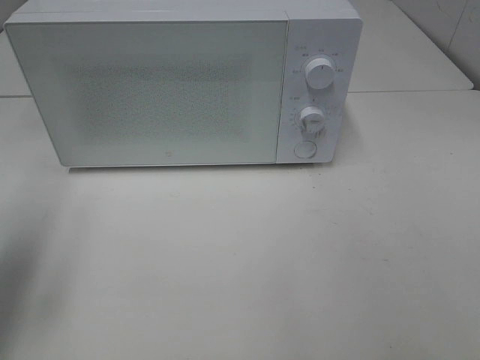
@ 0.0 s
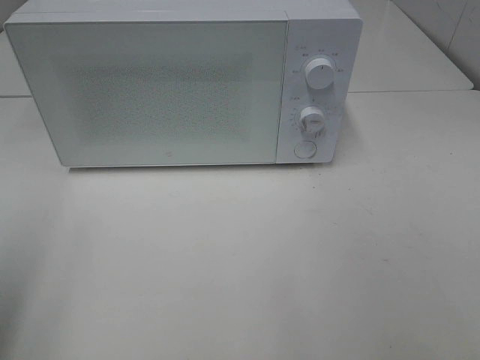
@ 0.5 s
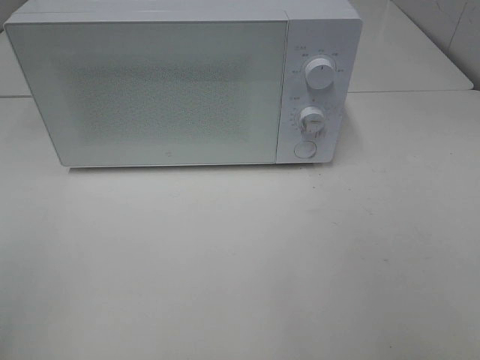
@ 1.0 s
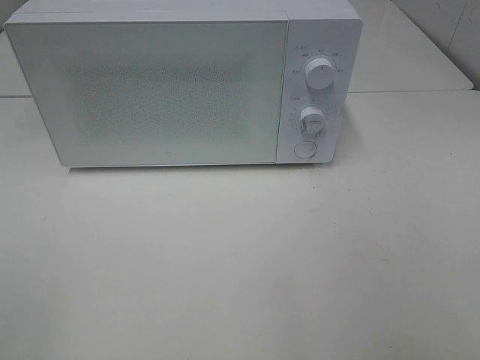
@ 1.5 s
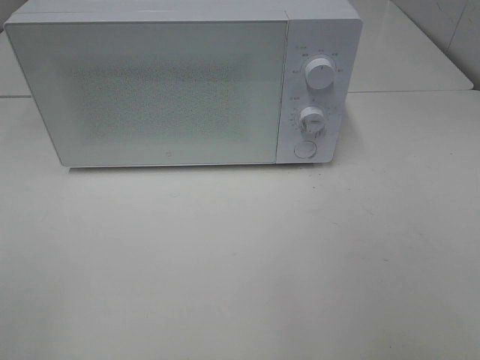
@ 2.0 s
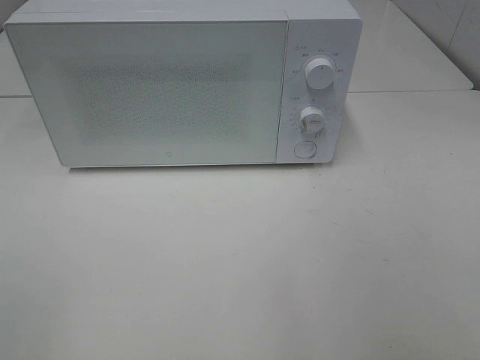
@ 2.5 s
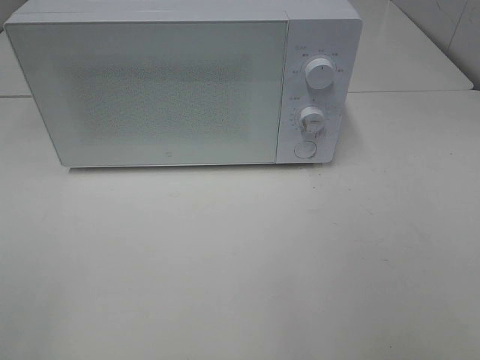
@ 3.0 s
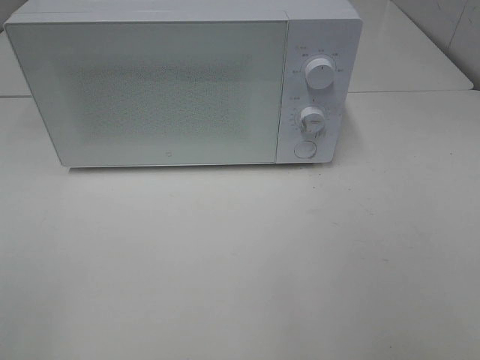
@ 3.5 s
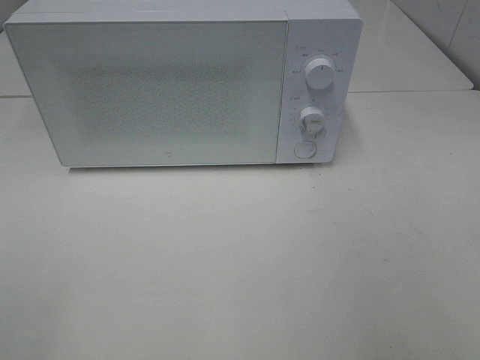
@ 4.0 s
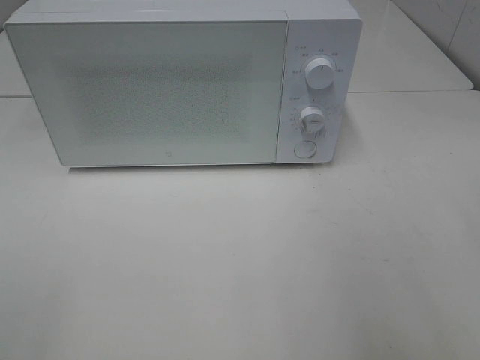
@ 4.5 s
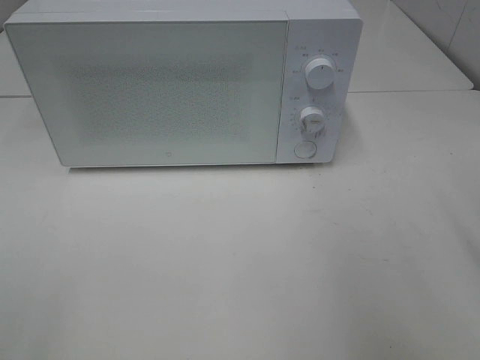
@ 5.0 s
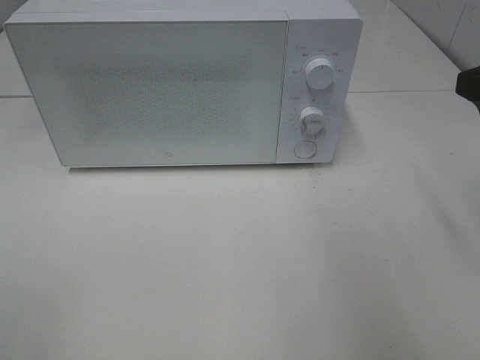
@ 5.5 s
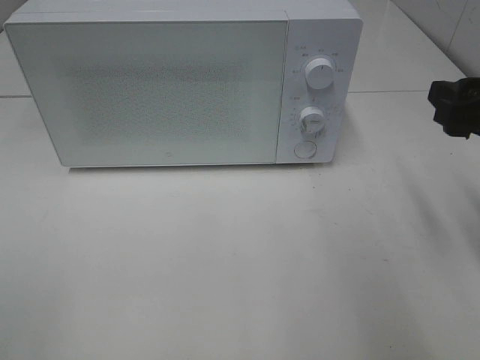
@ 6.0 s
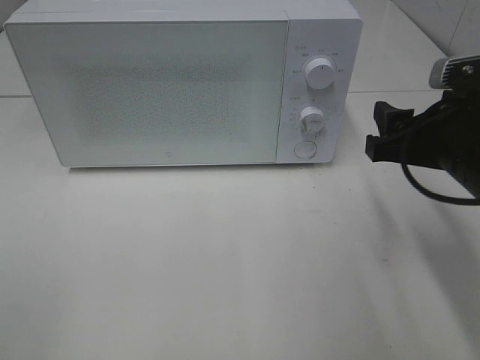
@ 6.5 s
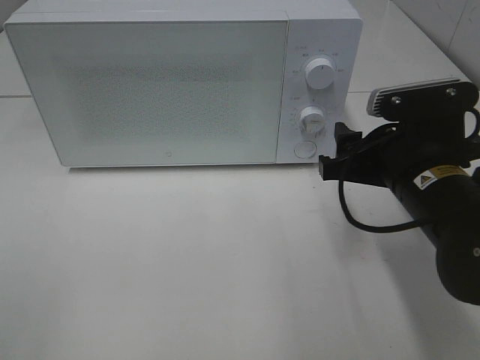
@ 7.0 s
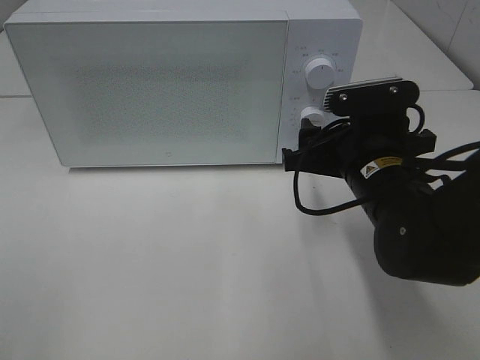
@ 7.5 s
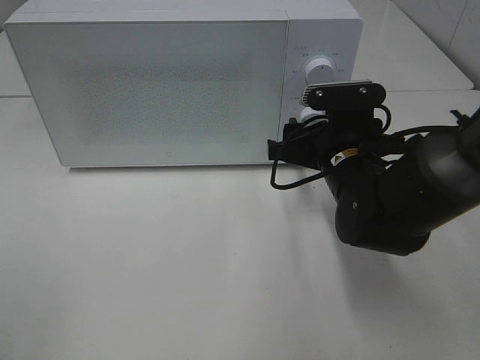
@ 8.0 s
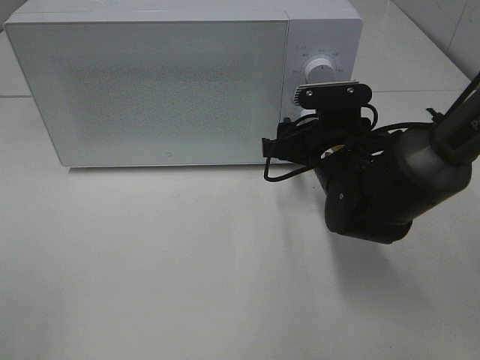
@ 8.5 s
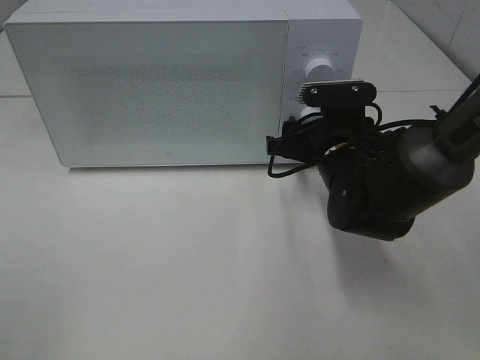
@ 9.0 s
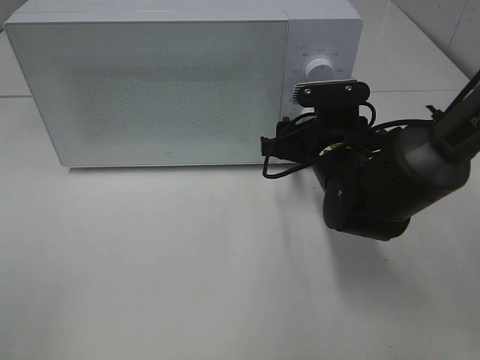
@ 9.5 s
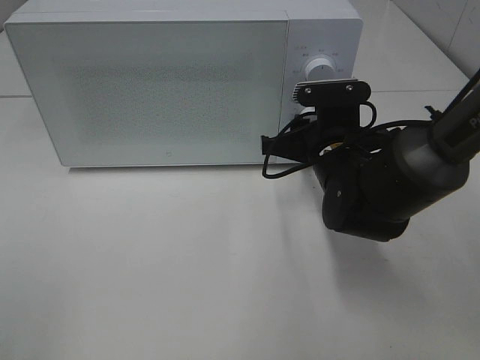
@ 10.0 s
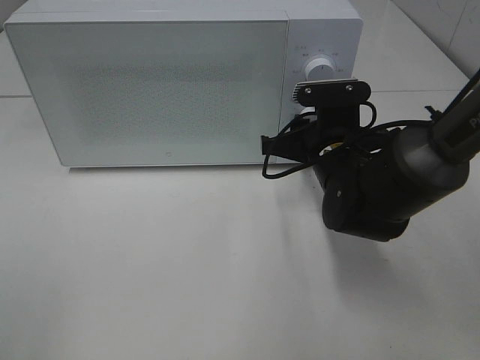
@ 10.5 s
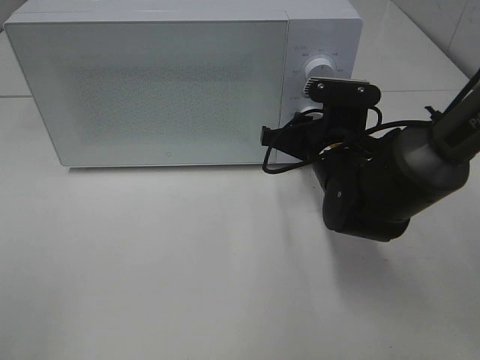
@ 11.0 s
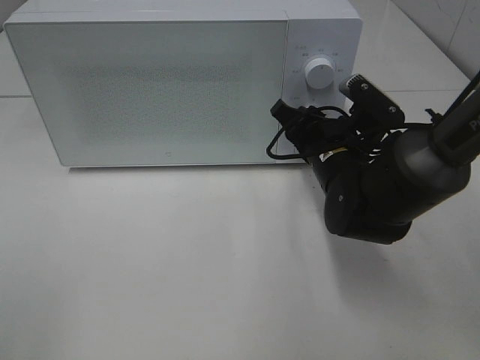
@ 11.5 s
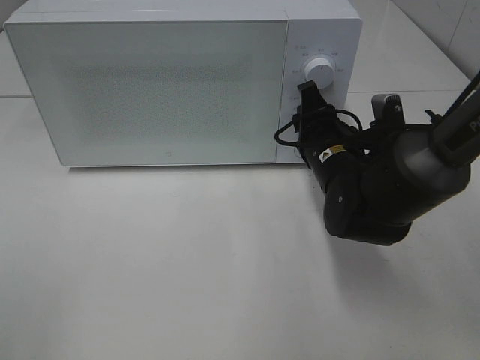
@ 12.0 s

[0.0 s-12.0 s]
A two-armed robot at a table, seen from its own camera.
Task of the whole recording: Heat Sandwich.
0.0 to 2.0 s: The left gripper is displaced backward by some 20 cm.
4.0 to 6.0 s: The right gripper moves forward and downward, about 20 cm.
6.0 to 8.0 s: The right gripper is displaced to the left, downward and forward by approximately 20 cm.
8.0 to 10.0 s: The right gripper closes its fingers.

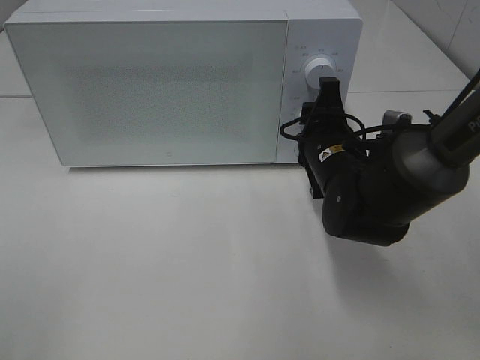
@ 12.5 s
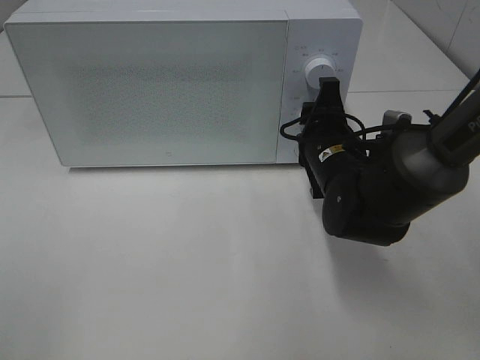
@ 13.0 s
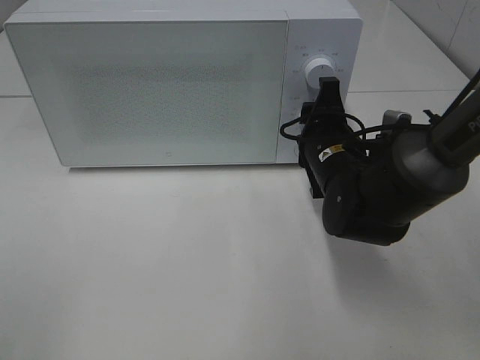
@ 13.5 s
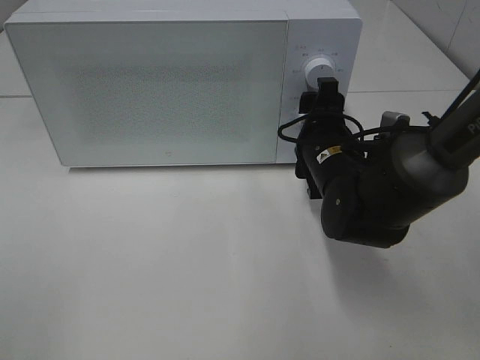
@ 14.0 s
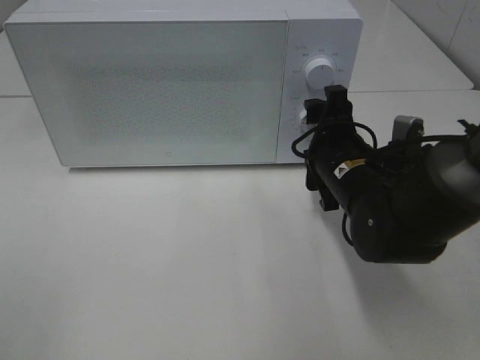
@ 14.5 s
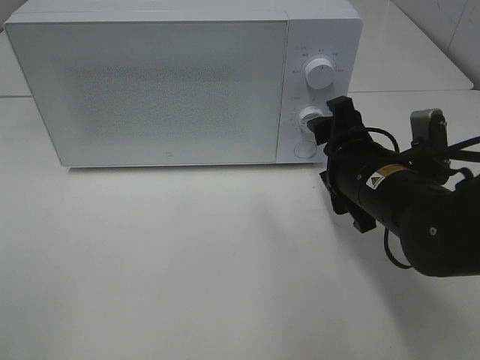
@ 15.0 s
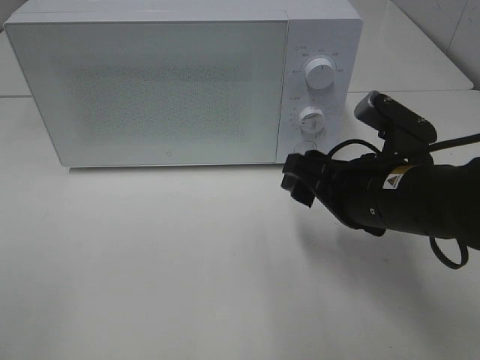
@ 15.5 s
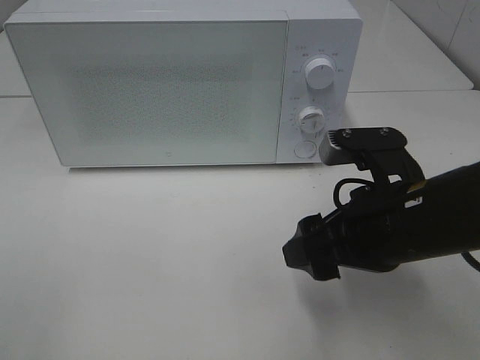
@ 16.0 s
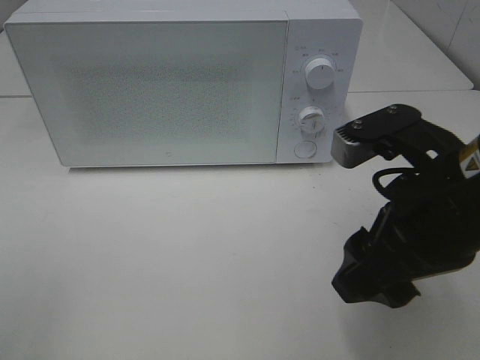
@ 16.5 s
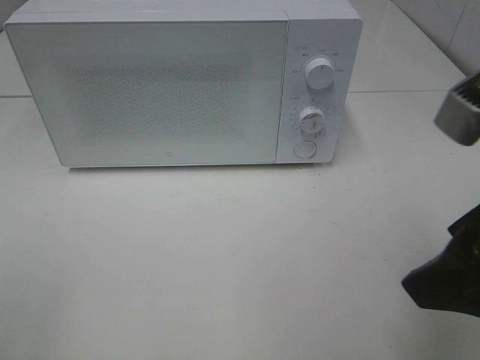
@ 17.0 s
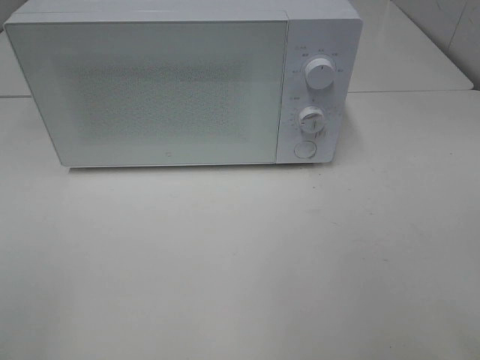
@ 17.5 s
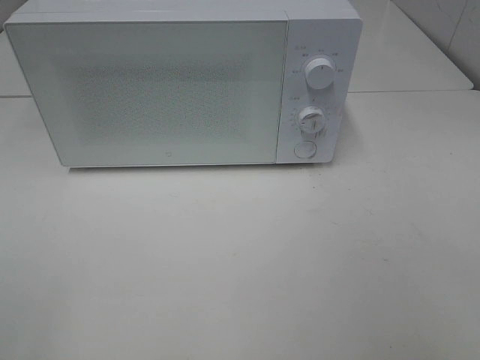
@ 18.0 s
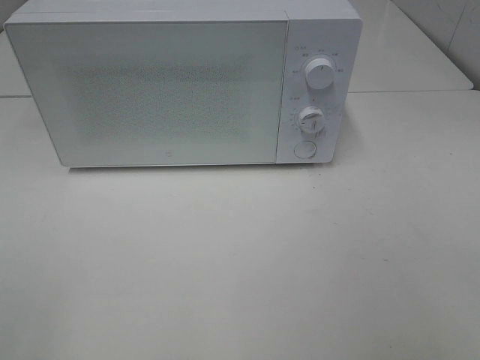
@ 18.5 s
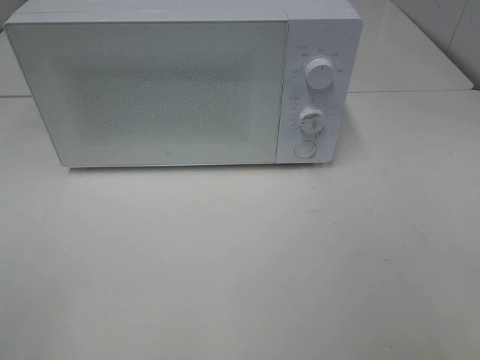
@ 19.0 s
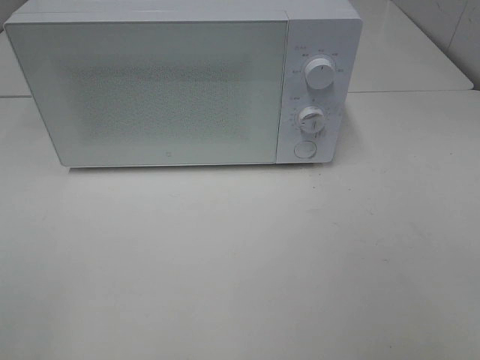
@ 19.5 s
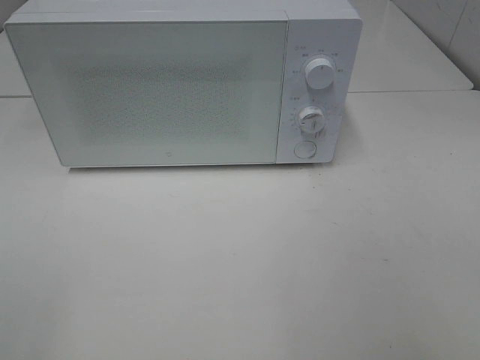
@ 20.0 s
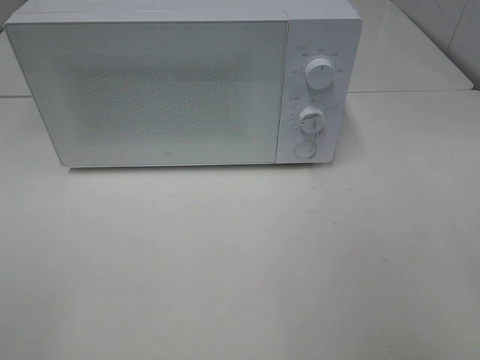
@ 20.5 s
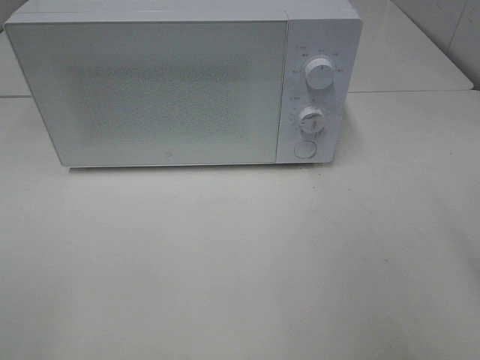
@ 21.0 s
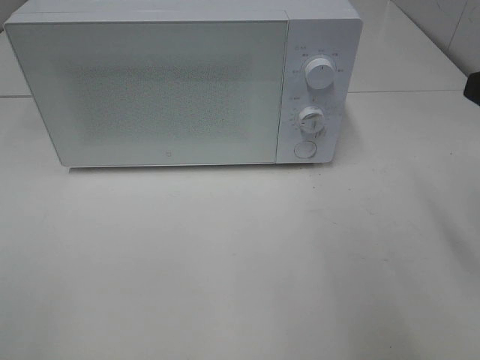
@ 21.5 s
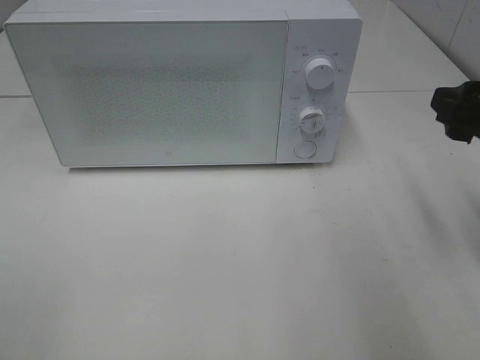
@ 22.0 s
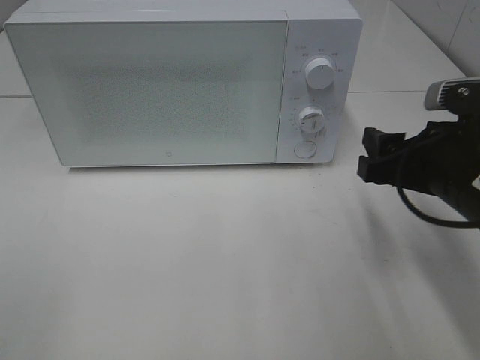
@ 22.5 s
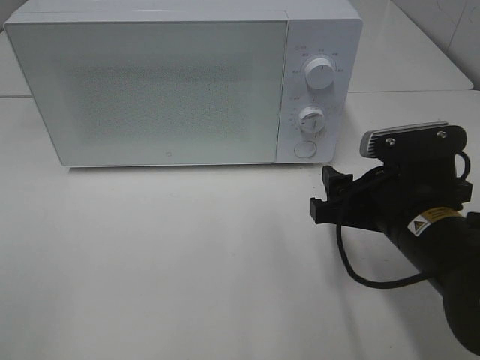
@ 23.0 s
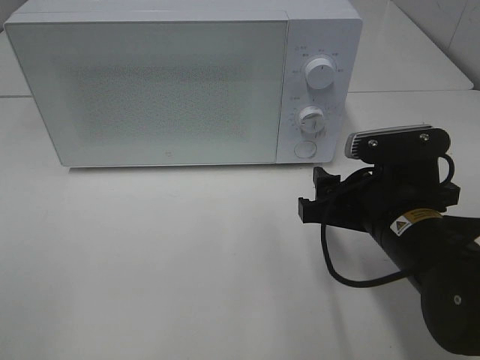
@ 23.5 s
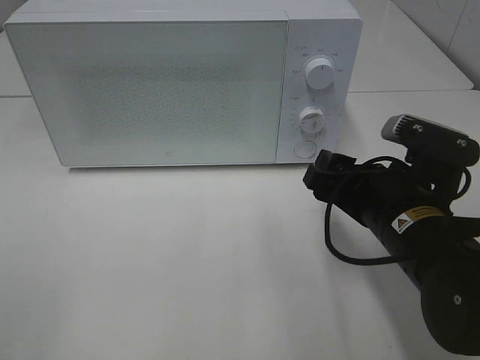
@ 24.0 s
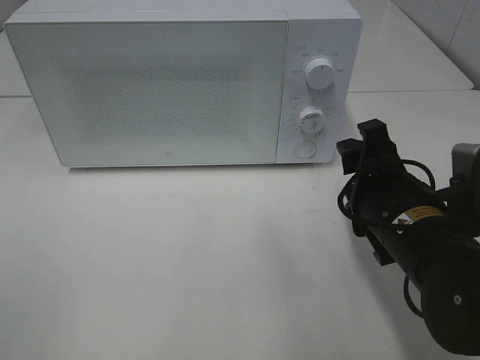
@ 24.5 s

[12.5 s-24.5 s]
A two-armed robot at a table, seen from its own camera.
Task of the whole recording: Heat Sandwich.
Step, 12.5 to 15.0 s: Right hand: twist timer button.
12.5 to 14.5 s: The right gripper opens.
14.5 to 16.5 s: The right gripper shifts about 15 cm backward and upward.
16.5 to 18.5 s: The right gripper is displaced backward and to the right by roughly 20 cm.
20.5 to 22.5 s: The right gripper travels forward, downward and to the left by approximately 20 cm.
22.5 to 24.5 s: The right gripper moves to the left, roughly 5 cm.

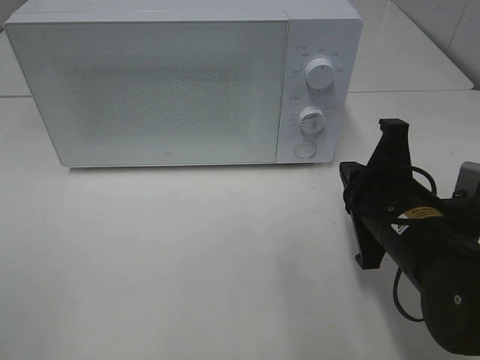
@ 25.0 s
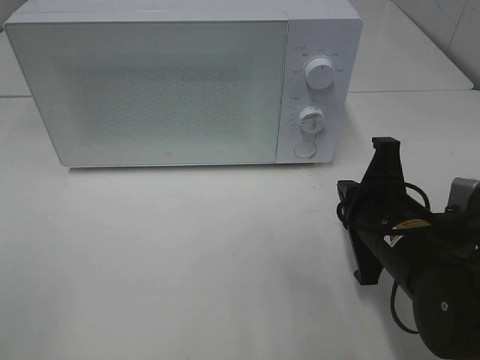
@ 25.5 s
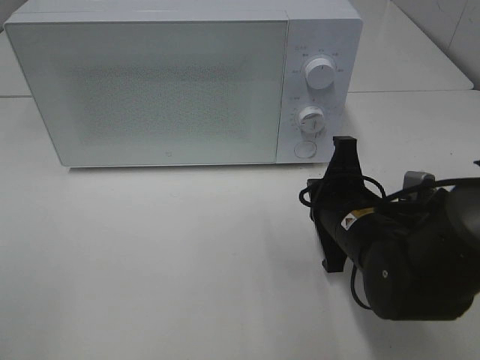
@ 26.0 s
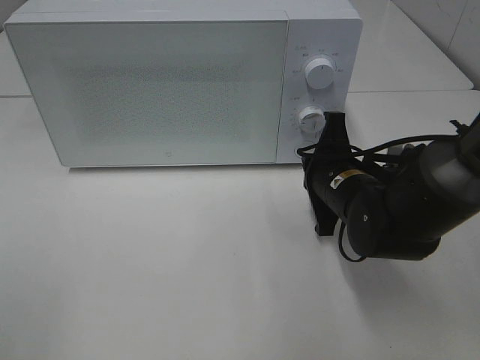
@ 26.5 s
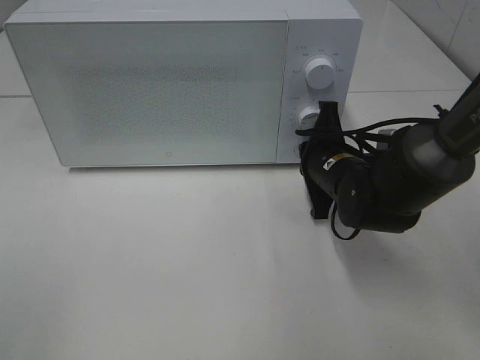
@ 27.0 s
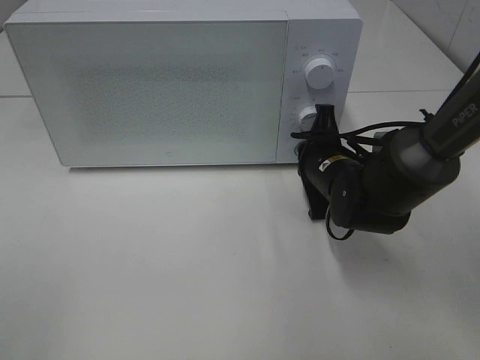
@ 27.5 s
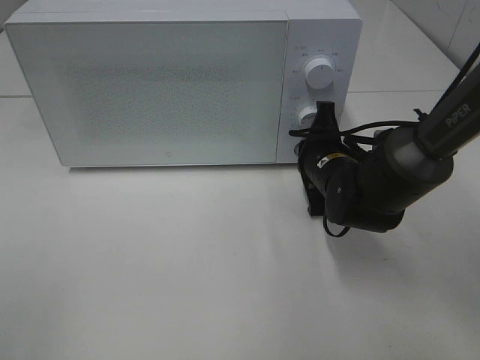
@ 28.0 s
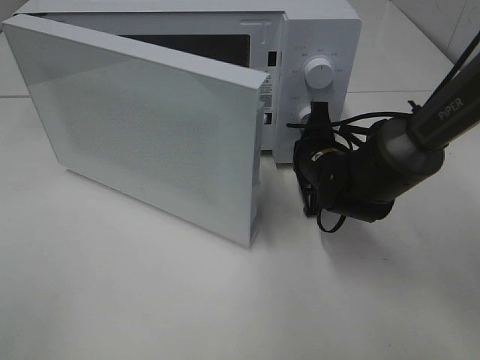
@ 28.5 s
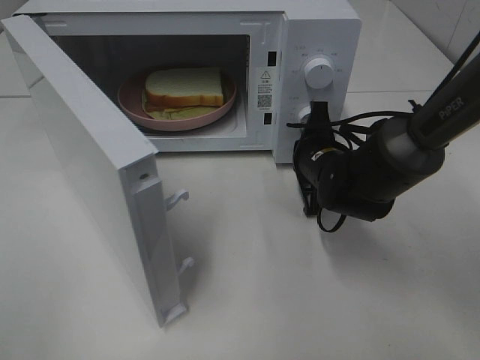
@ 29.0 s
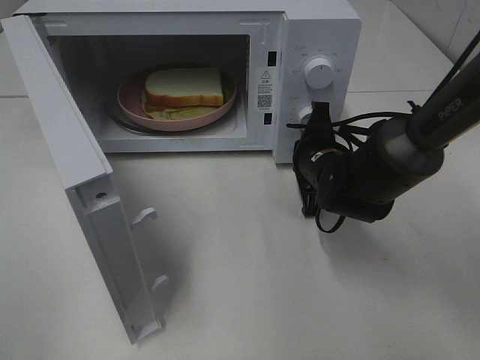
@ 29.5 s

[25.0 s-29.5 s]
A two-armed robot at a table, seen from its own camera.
Task of the whole recording: Heat Sandwich.
25.0 to 27.0 s: The right gripper heads forward, covering approximately 15 cm.
